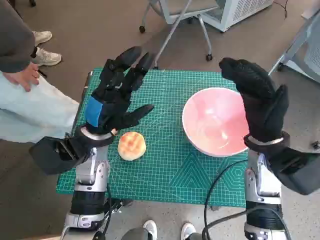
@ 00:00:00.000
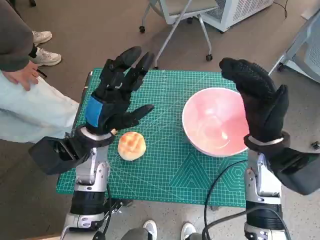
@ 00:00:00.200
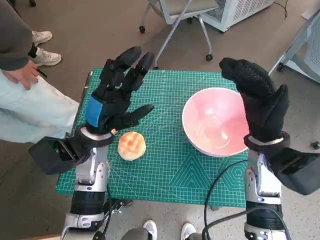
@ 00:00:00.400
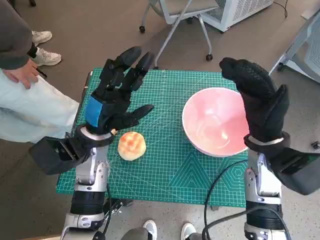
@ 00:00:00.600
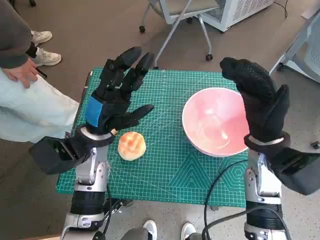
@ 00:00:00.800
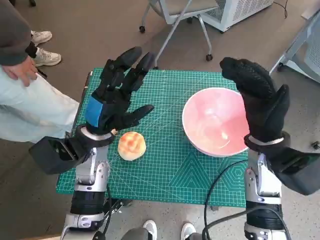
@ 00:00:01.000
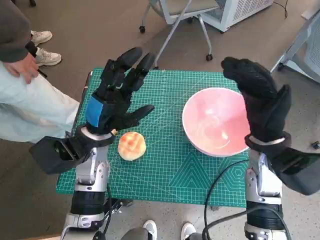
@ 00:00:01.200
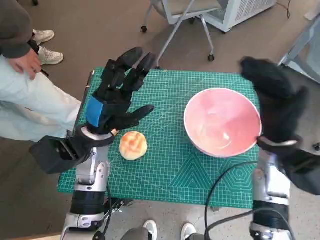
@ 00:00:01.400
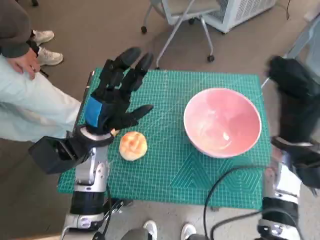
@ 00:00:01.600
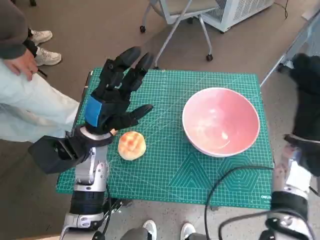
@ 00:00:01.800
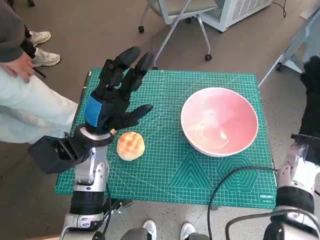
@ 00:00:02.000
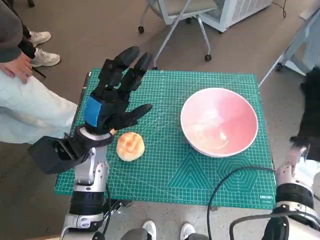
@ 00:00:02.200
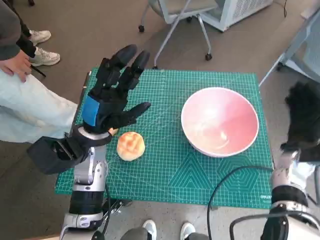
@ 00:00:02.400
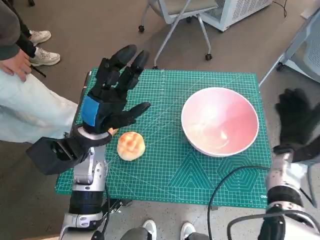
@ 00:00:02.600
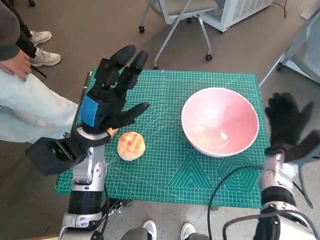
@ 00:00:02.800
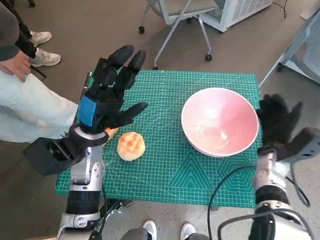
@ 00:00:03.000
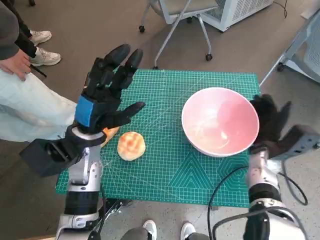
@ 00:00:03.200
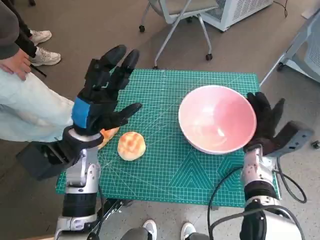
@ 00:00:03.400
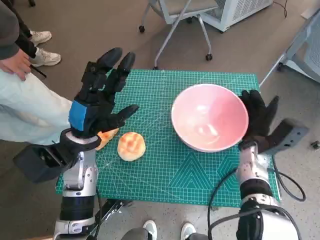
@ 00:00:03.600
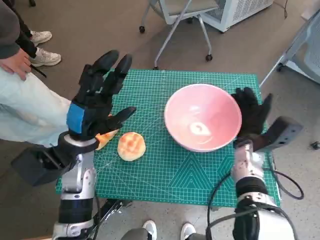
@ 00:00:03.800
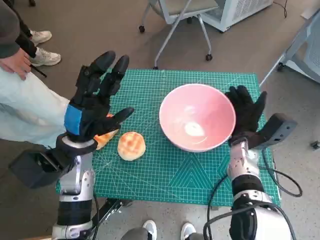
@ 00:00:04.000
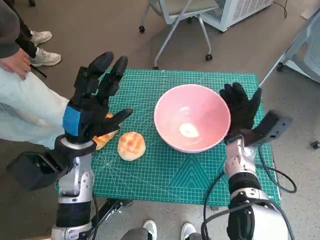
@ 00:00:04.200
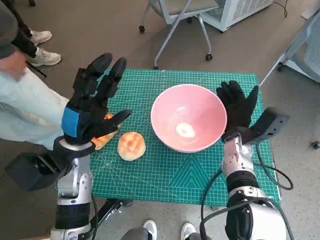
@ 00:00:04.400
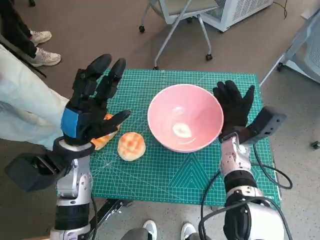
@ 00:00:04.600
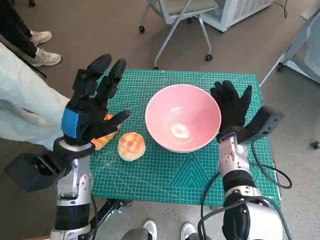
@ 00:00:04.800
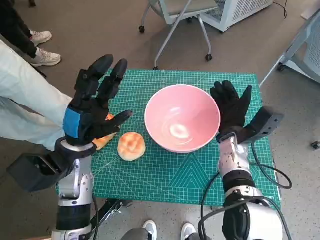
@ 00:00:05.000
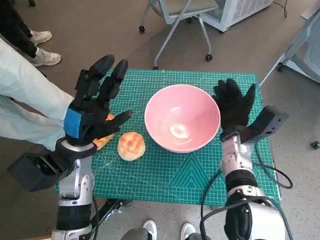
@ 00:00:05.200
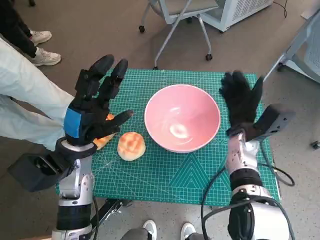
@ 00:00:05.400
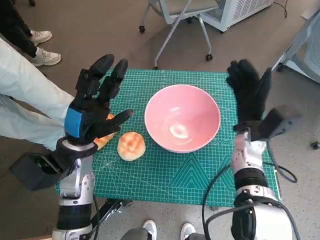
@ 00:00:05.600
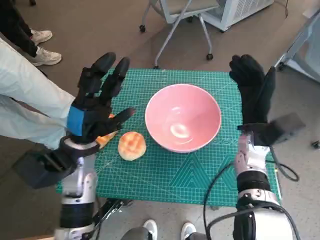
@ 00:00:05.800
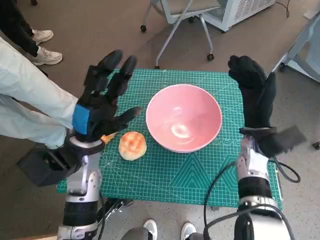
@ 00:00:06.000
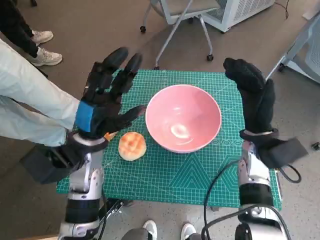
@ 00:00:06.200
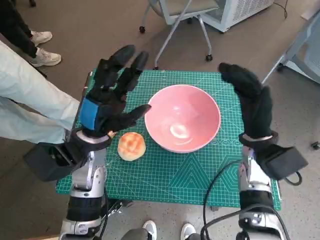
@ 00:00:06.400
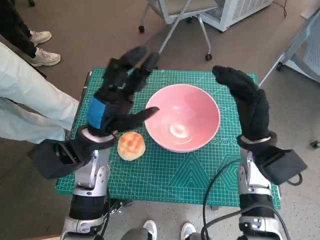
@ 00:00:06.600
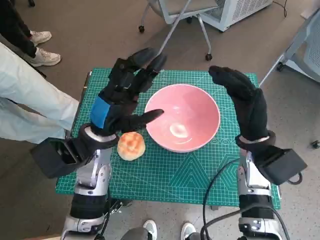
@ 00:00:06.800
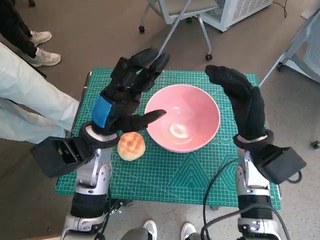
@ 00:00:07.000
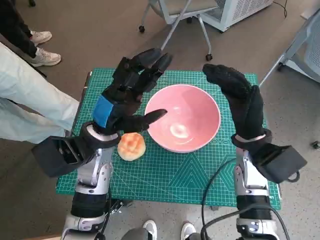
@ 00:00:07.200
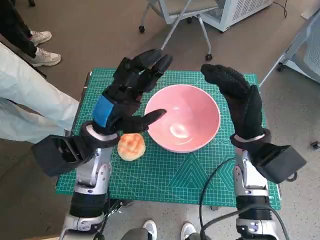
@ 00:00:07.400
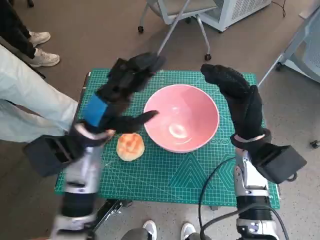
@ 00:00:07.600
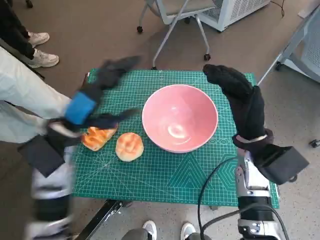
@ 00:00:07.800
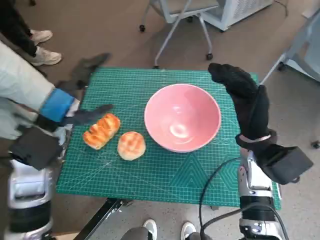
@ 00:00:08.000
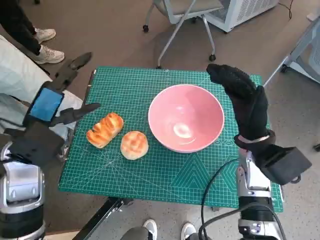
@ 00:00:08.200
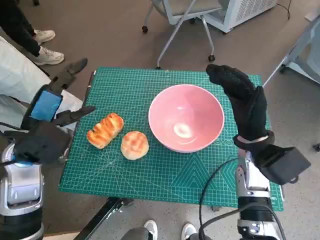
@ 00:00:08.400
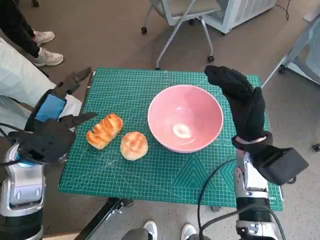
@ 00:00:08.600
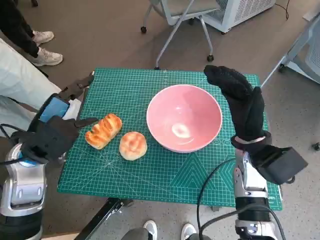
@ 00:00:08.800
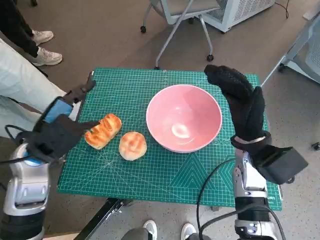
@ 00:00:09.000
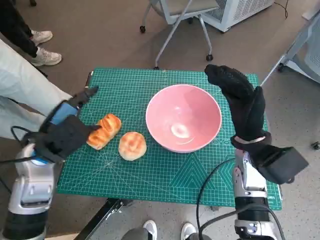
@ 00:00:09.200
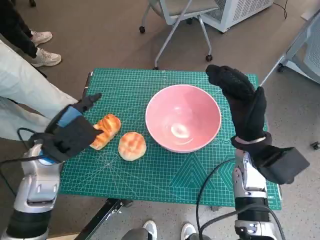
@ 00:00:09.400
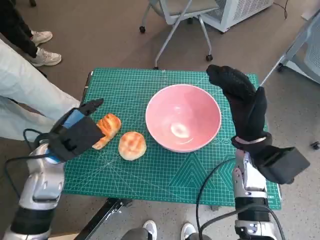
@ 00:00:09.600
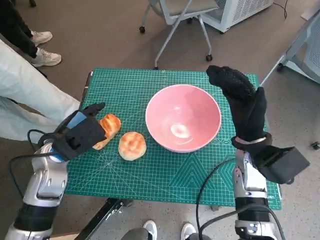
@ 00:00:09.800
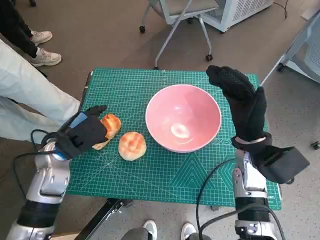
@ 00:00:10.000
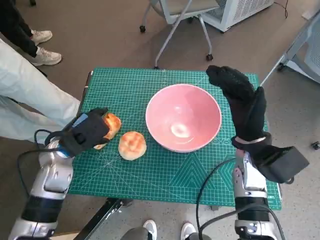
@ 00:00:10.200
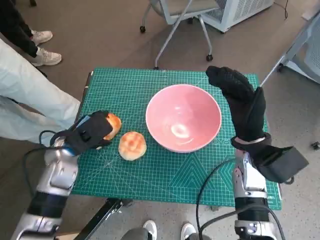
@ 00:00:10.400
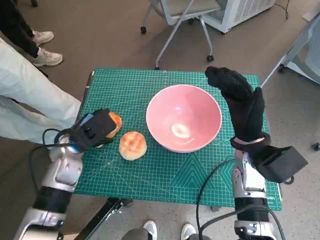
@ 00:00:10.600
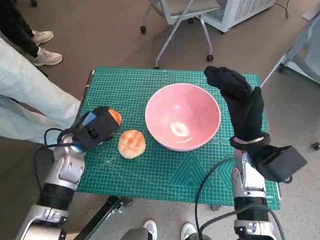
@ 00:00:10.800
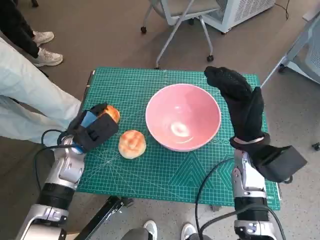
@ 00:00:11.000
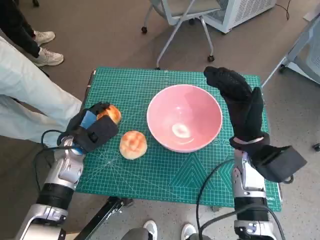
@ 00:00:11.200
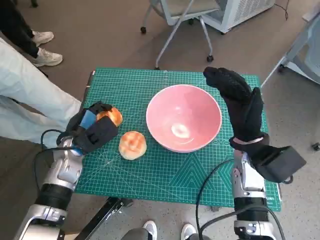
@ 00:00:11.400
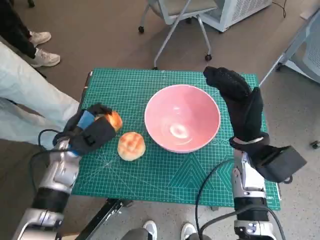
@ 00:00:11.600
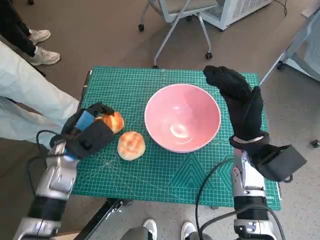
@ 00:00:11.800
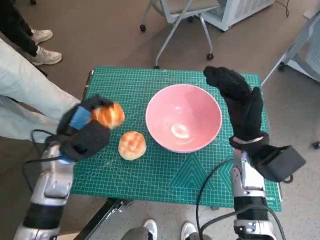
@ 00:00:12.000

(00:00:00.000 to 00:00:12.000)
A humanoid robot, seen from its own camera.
Task of the whole recording: Push the bowl into the center of the table and put the bread into the bowl.
Step, 00:00:00.000 - 00:00:05.400: Move the pink bowl to the center of table with right hand.
Step, 00:00:05.600 - 00:00:10.600: Grasp the long bread with left hand.
00:00:01.600 - 00:00:03.000: The right hand moves downward, some 10 cm.
00:00:03.000 - 00:00:04.400: The right hand goes roughly 10 cm to the left.
00:00:07.600 - 00:00:09.000: The left hand moves to the left, approximately 10 cm.
00:00:09.000 - 00:00:10.400: The left hand heads downward, covering roughly 5 cm.

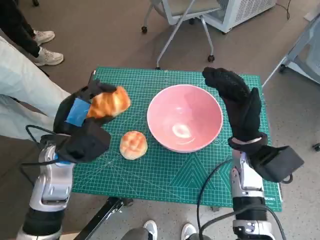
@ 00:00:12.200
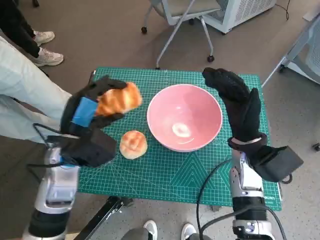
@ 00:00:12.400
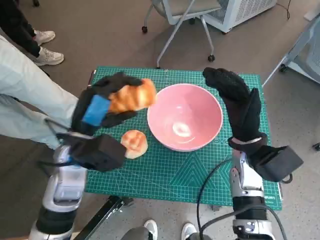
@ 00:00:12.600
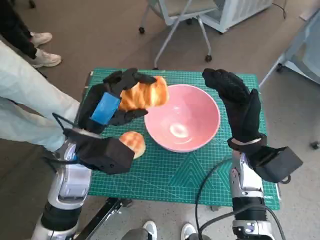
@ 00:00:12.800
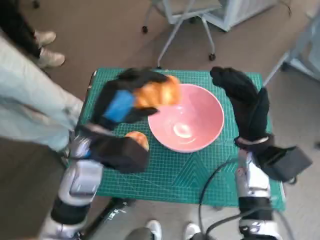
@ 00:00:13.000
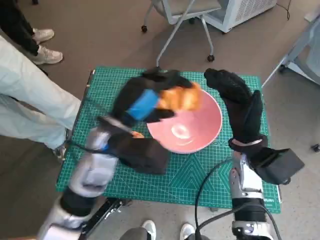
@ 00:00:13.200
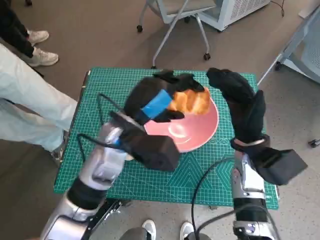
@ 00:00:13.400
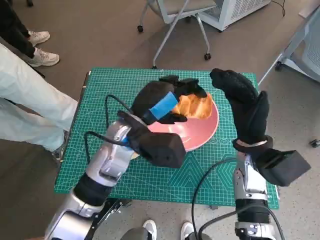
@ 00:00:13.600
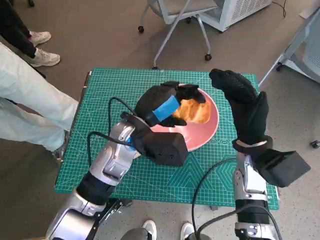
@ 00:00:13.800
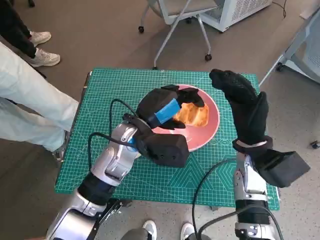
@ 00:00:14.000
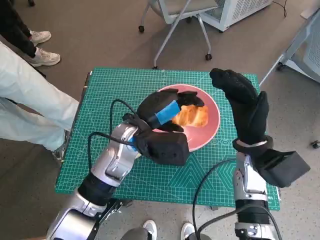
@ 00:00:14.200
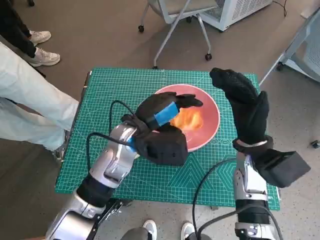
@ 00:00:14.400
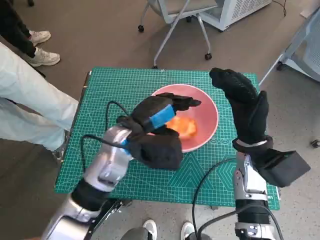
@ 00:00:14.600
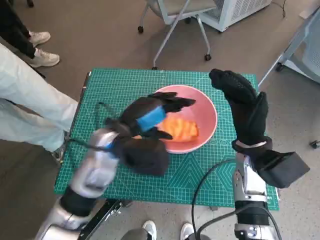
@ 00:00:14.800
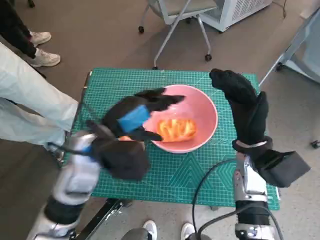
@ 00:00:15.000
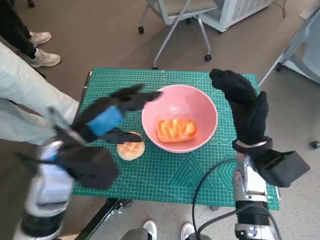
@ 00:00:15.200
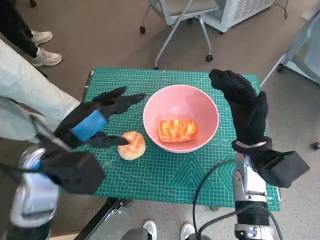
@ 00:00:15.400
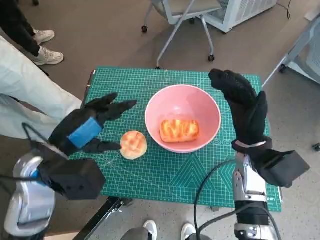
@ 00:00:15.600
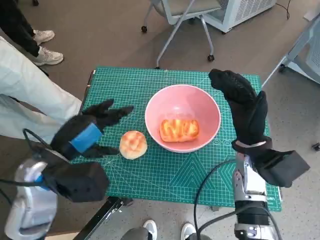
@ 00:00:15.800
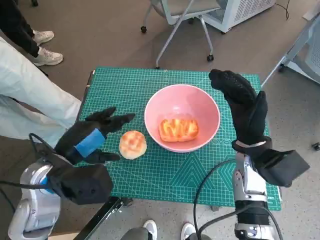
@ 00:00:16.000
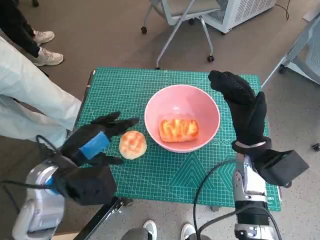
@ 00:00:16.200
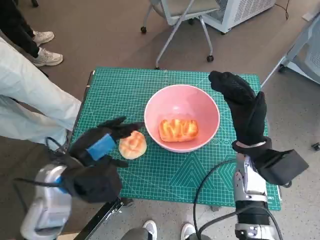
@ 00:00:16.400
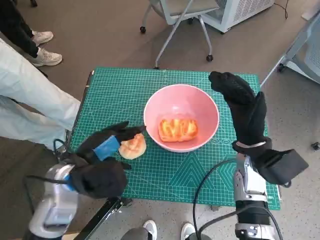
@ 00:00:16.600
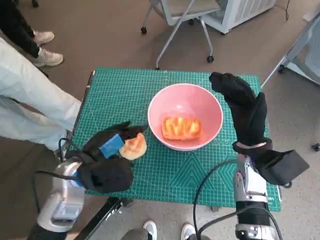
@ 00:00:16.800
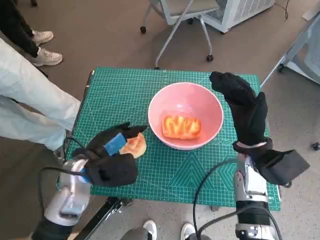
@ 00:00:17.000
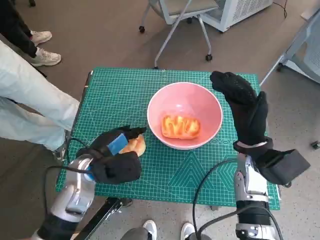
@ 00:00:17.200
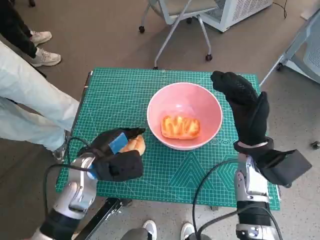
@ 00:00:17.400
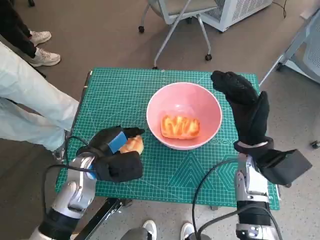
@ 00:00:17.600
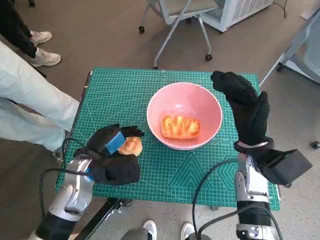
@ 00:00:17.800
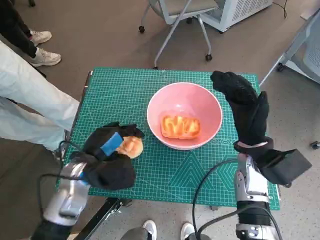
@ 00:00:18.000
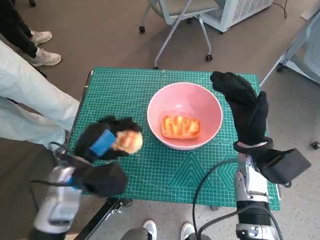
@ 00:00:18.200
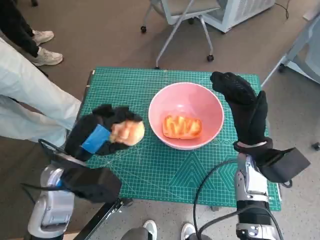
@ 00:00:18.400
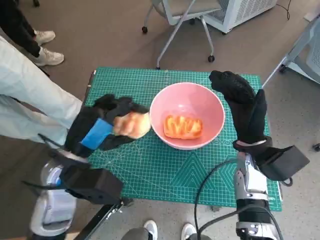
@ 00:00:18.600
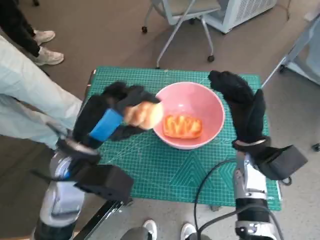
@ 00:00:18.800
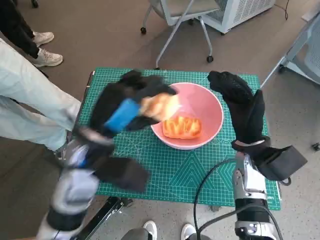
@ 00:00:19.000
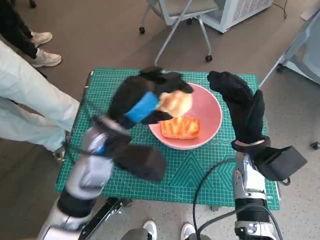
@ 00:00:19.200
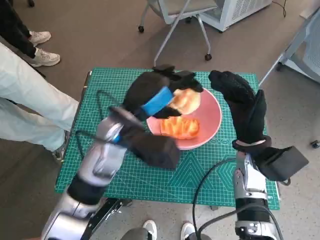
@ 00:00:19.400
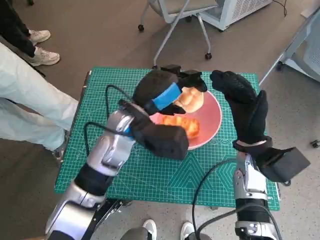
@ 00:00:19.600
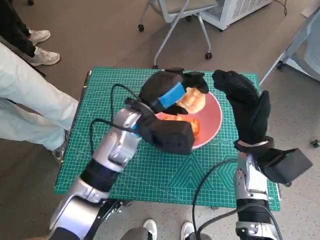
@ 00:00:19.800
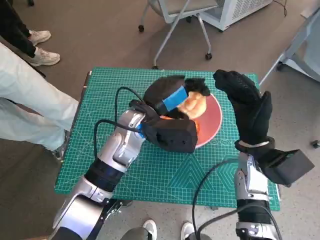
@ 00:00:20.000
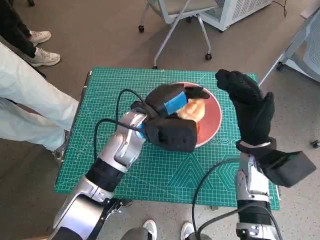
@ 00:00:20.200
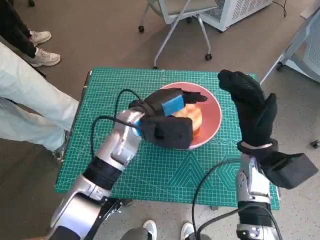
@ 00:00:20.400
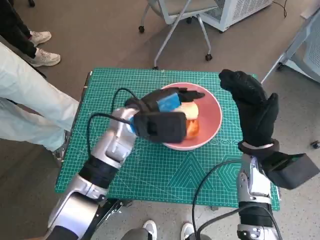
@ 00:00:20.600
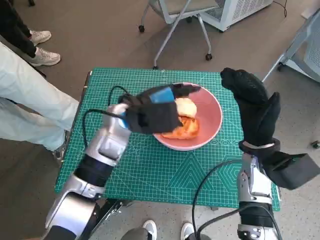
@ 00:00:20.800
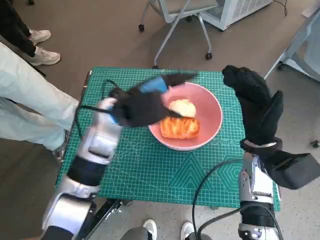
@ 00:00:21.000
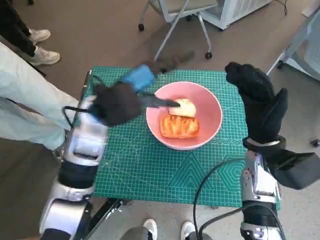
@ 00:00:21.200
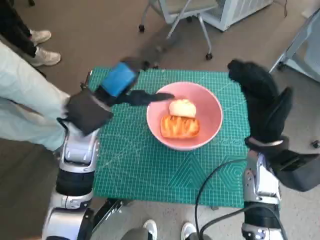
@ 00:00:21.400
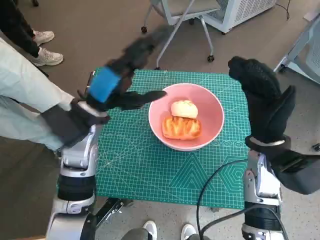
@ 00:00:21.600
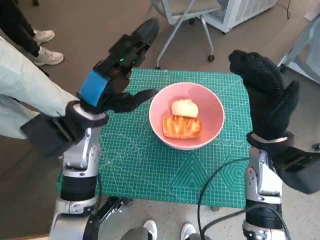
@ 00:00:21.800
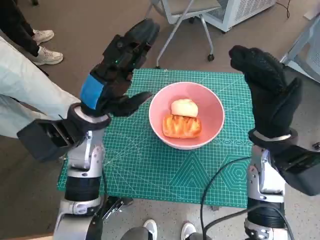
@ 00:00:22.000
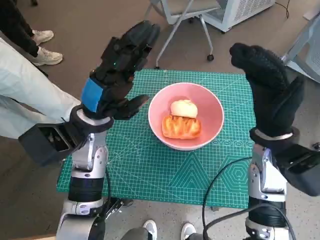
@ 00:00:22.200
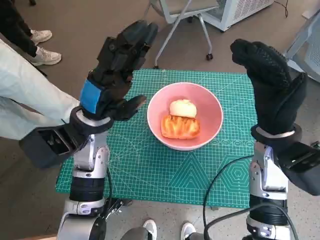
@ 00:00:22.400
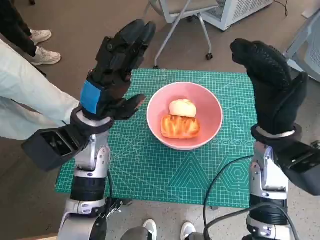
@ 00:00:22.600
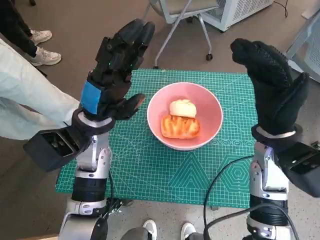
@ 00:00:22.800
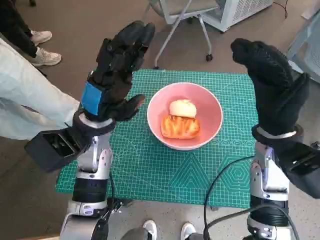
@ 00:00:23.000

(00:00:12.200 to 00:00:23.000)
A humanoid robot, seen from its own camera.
Task of the whole recording: Push the bowl into the center of the table and put the bread into the bowl.
Step, 00:00:12.200 - 00:00:15.200: Place the long bread in pink bowl with left hand.
Step, 00:00:15.400 - 00:00:17.200: Grasp the round bread with left hand.
Step, 00:00:17.400 - 00:00:21.200: Place the round bread in pink bowl with left hand.
00:00:12.200 - 00:00:13.800: The left hand travels to the right by some 15 cm.
00:00:13.800 - 00:00:15.200: The left hand goes roughly 10 cm to the left and backward.
00:00:15.200 - 00:00:16.800: The left hand moves downward, approximately 5 cm.
00:00:18.400 - 00:00:20.000: The left hand moves to the right and forward, about 15 cm.
00:00:20.000 - 00:00:21.400: The left hand shifts some 10 cm to the left.
